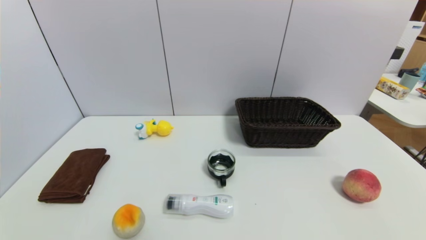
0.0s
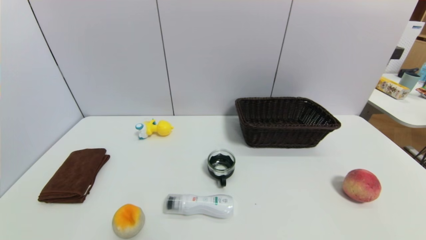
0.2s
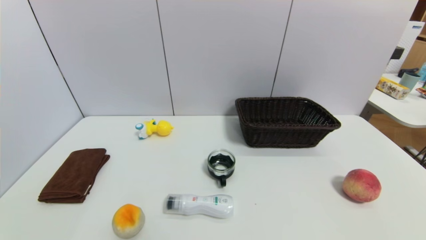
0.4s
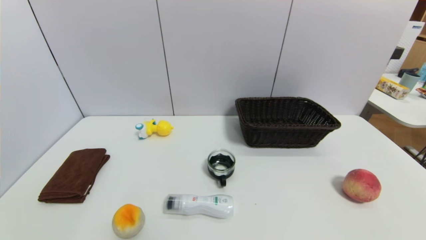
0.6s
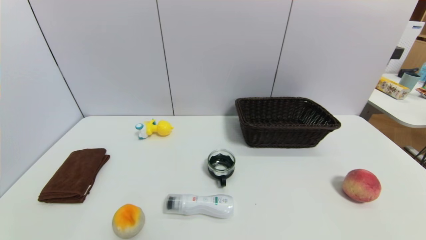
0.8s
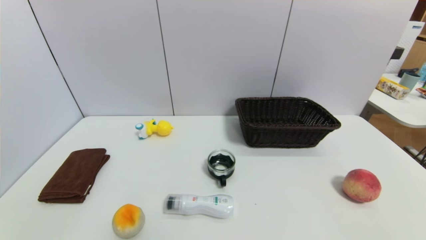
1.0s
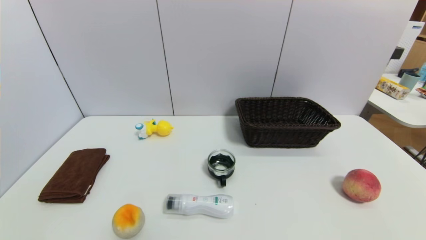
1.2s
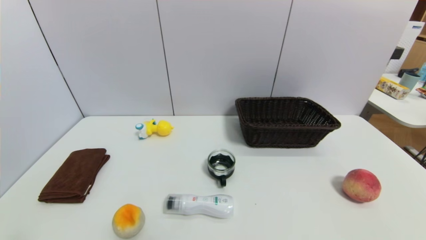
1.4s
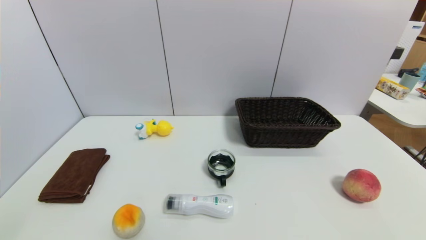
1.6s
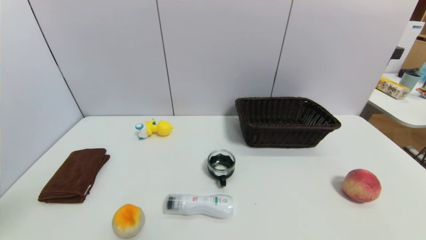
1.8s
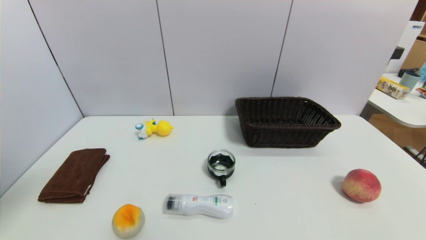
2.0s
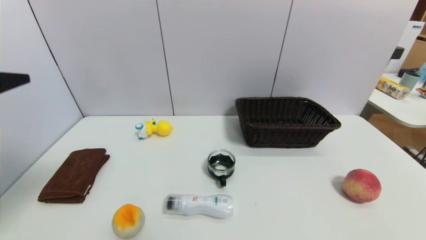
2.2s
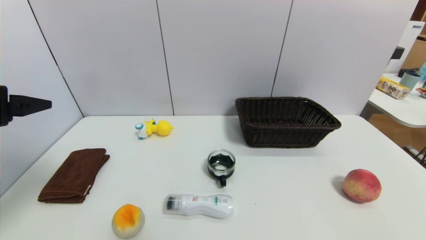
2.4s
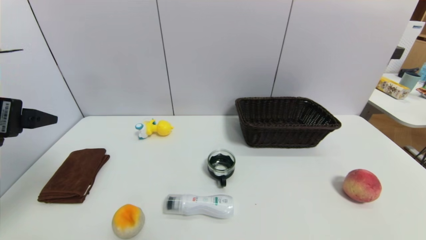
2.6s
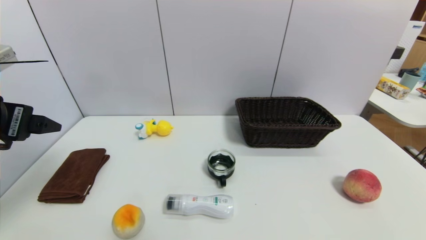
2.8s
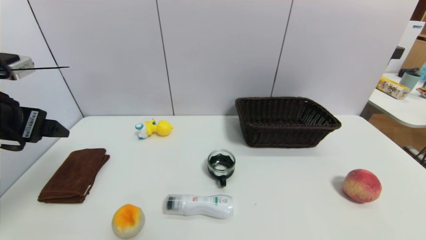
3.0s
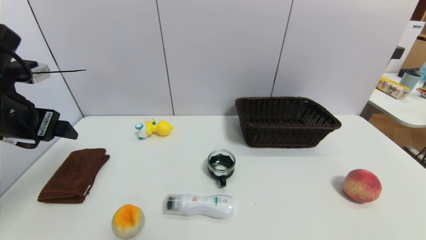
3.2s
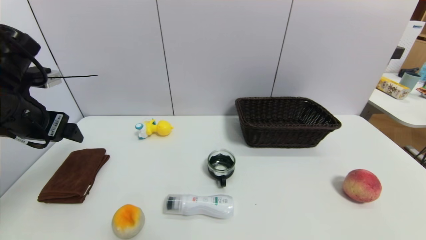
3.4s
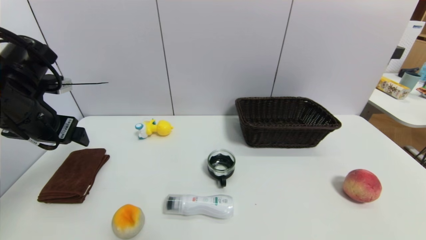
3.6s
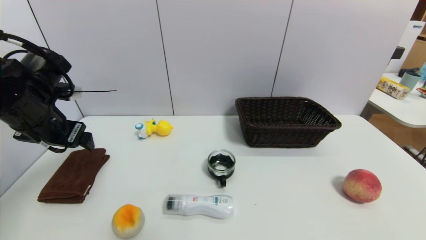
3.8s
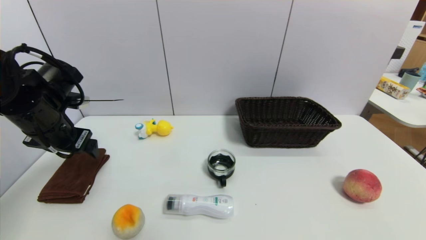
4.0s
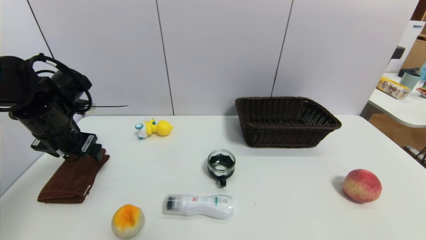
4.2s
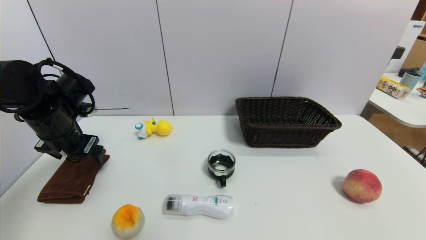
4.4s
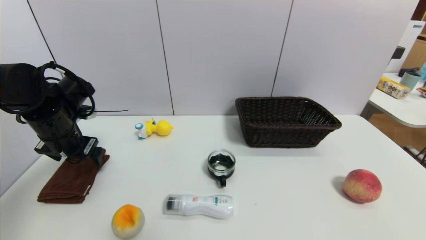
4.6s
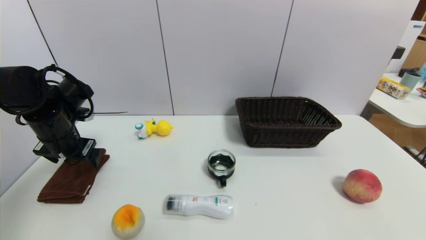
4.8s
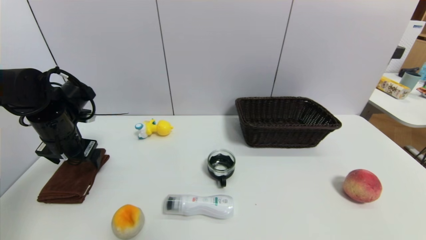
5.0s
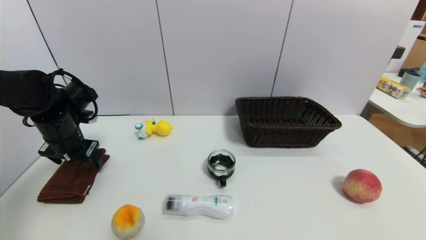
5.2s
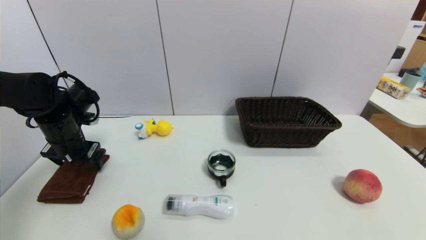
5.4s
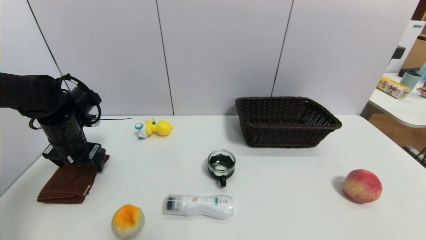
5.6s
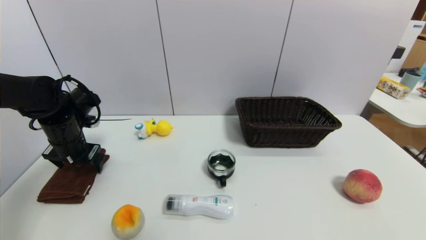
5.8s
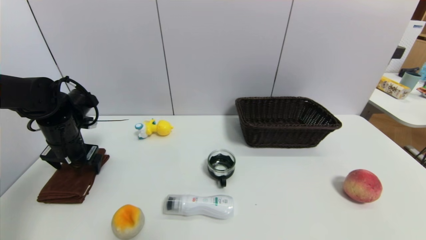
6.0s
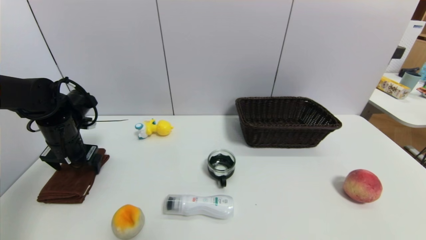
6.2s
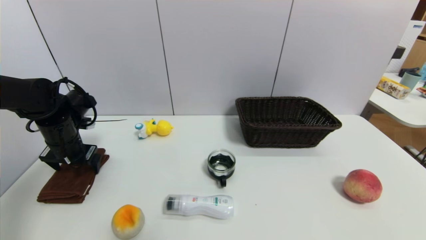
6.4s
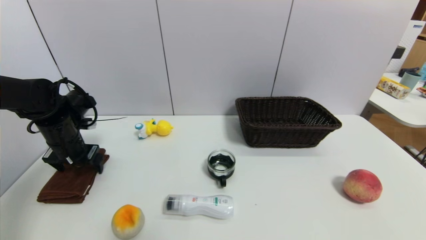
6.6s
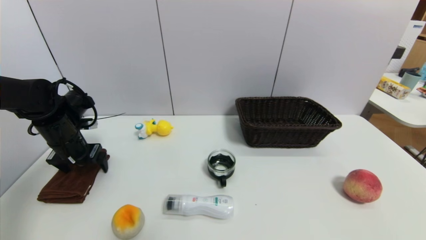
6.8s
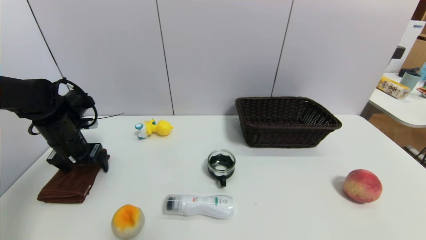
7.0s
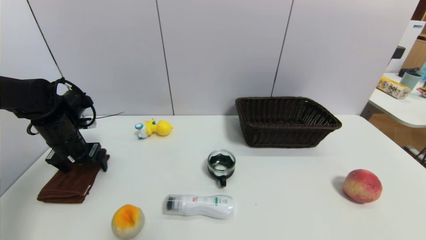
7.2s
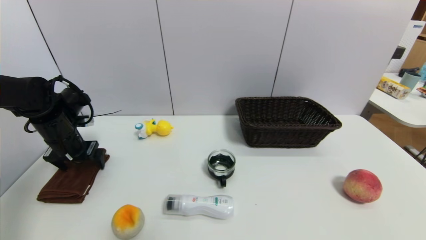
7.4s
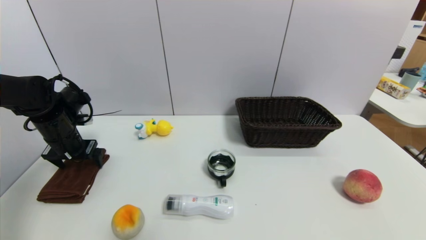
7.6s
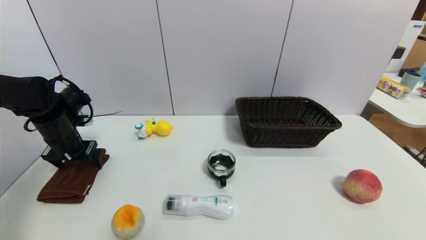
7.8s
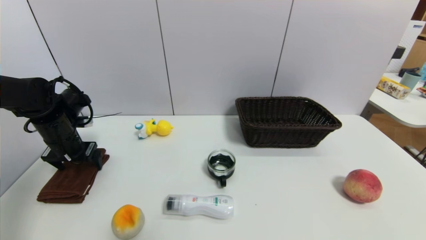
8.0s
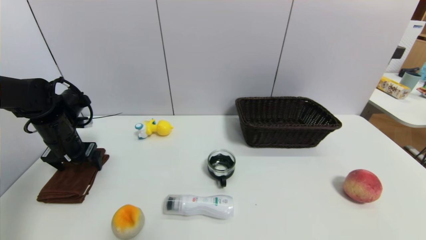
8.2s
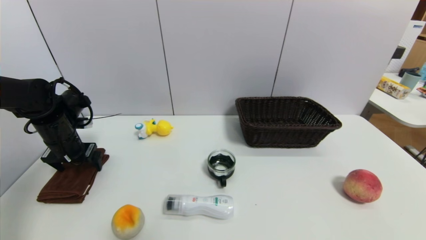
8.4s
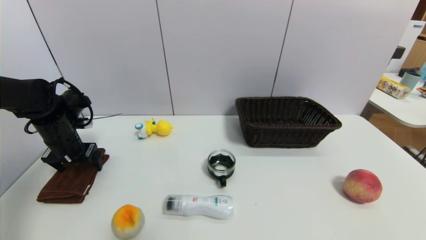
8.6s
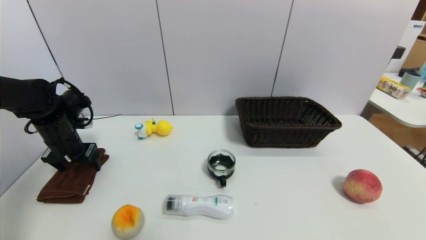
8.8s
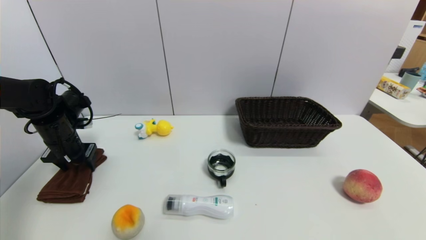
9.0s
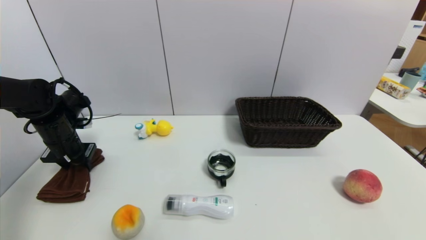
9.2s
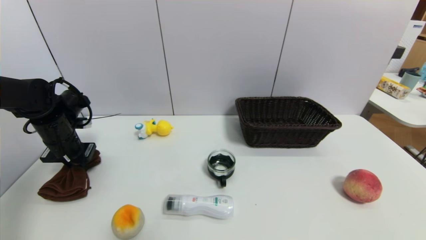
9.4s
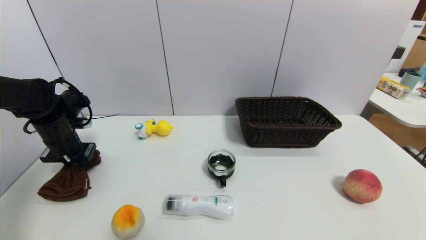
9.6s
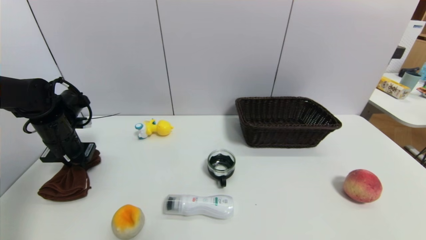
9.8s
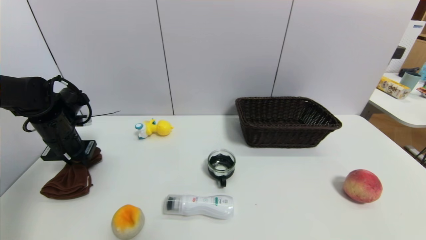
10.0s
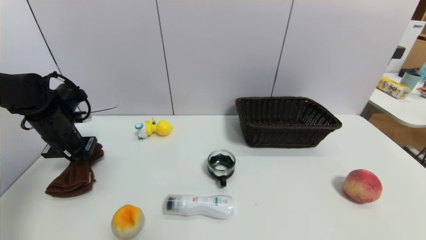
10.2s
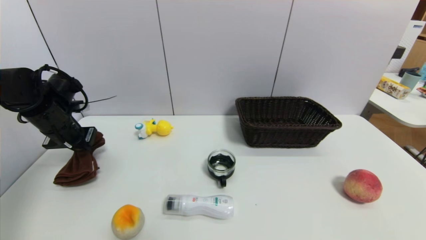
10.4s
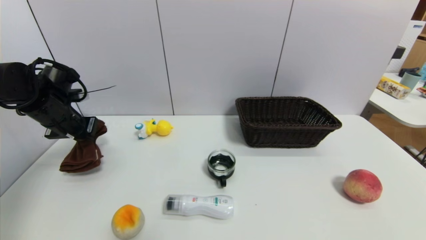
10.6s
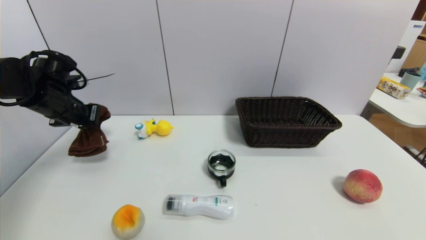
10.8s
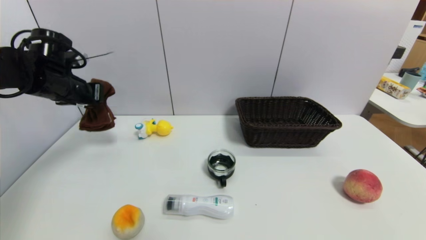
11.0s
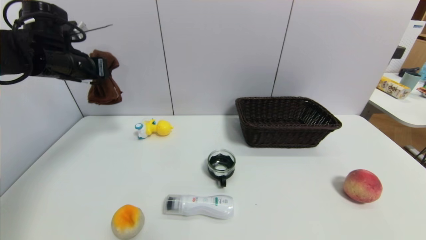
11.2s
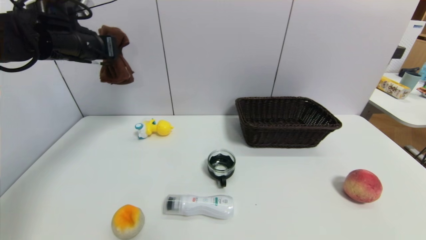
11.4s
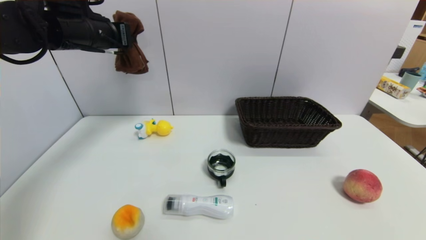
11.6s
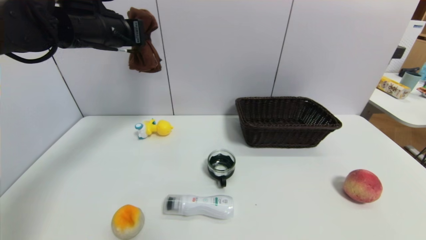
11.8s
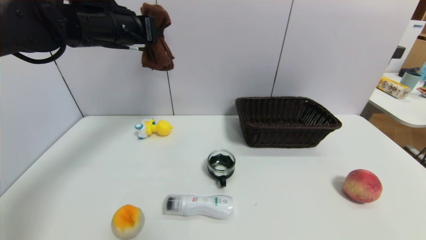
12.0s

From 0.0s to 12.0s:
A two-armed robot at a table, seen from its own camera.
Task of the whole recording: use a gripper to pick the target object and place on the brown basket.
Step, from 0.0s to 9.4s: Grasp the brown towel with the left gripper.
From 1.6s to 3.0s: The left gripper shifts some 20 cm forward.
From 3.0s to 4.4s: The left gripper travels forward and downward by some 15 cm.
From 4.4s to 6.0s: The left gripper moves about 5 cm.
From 6.0s to 7.6s: The grippers move only a little.
From 7.6s to 9.0s: The left gripper closes its fingers.
From 9.0s to 10.4s: The left gripper closes its fingers.
From 10.4s to 12.0s: The left gripper travels upward and to the right by about 25 cm.

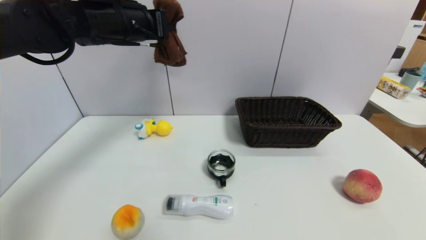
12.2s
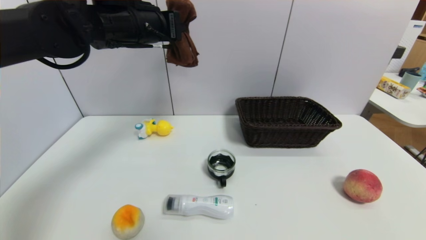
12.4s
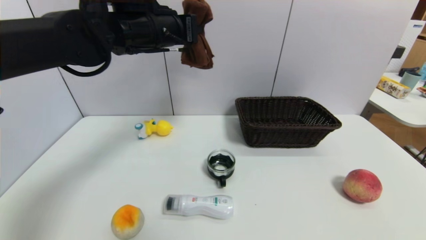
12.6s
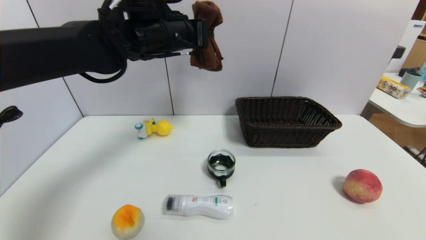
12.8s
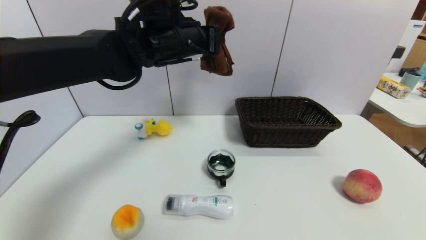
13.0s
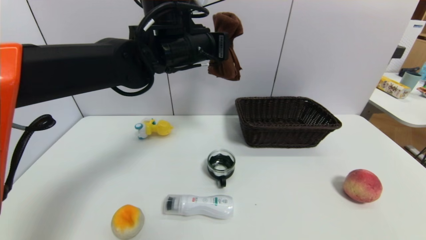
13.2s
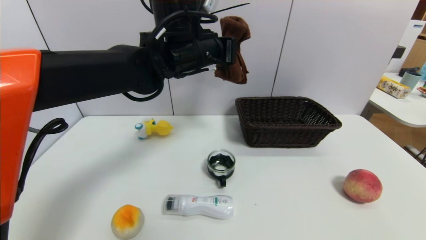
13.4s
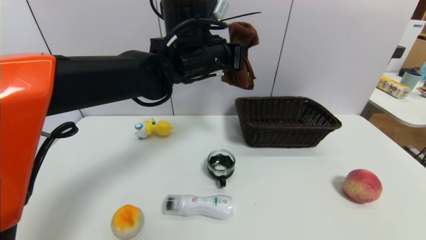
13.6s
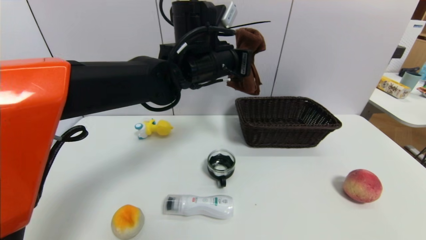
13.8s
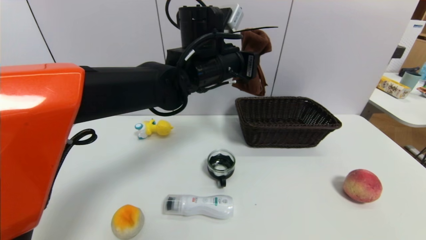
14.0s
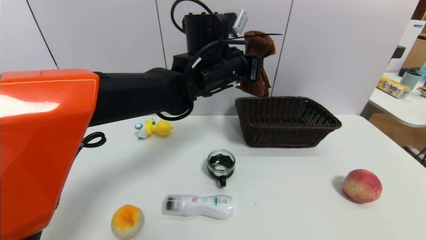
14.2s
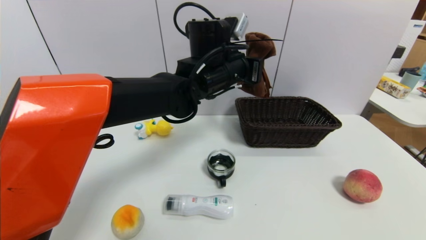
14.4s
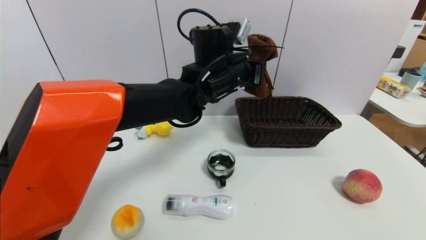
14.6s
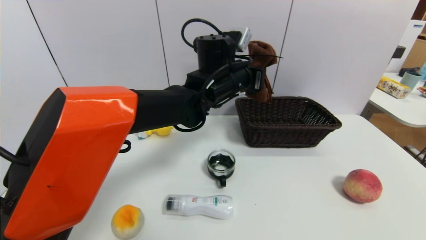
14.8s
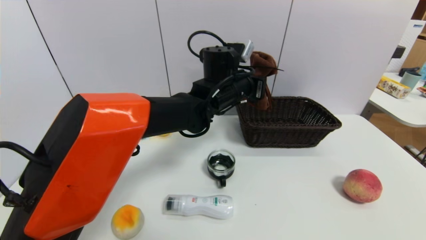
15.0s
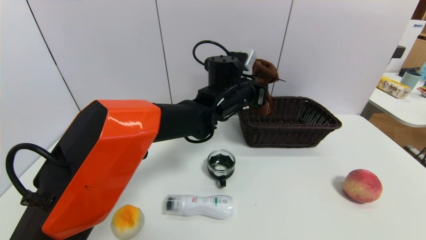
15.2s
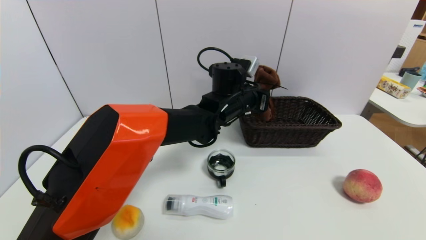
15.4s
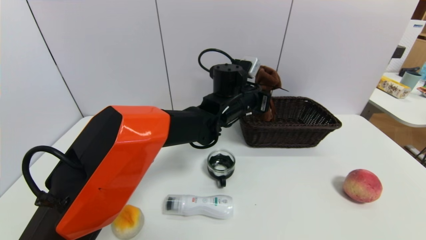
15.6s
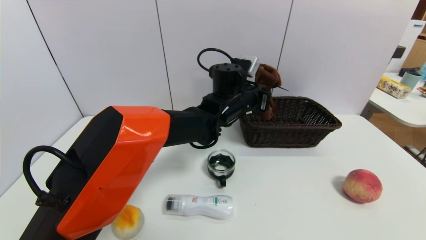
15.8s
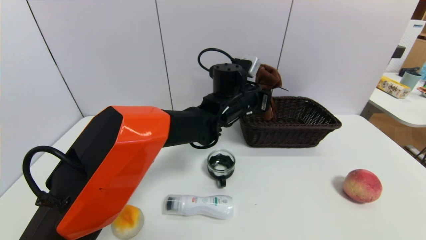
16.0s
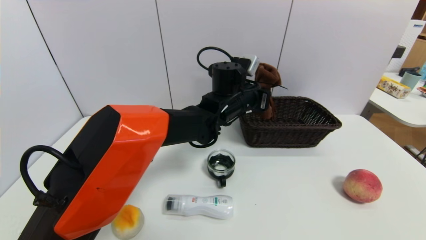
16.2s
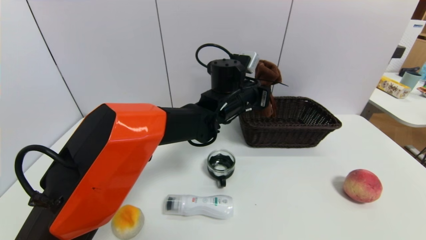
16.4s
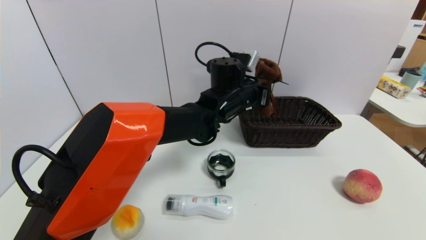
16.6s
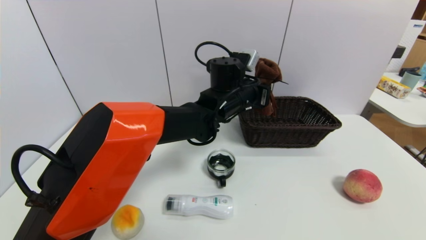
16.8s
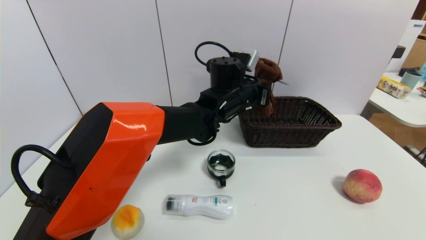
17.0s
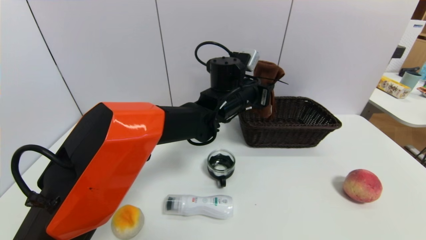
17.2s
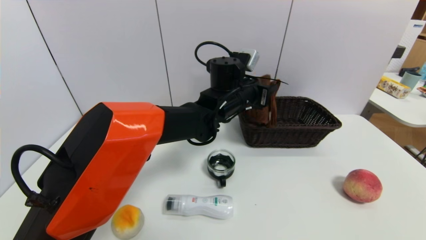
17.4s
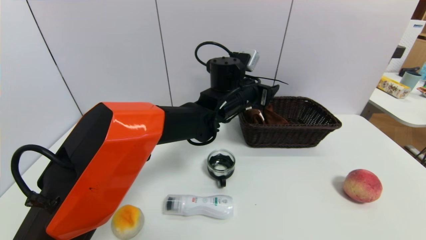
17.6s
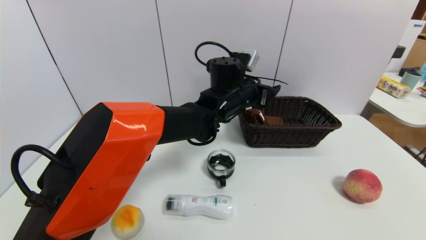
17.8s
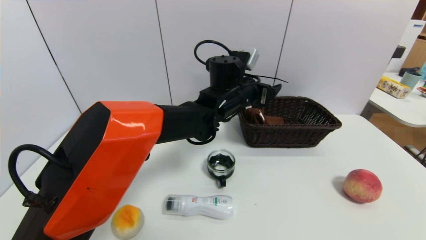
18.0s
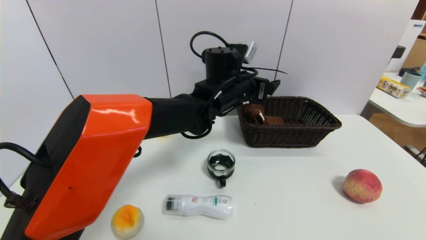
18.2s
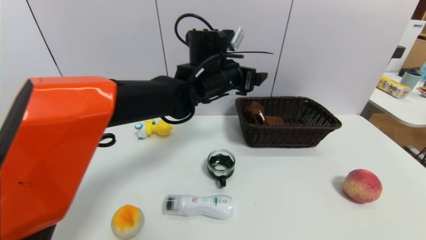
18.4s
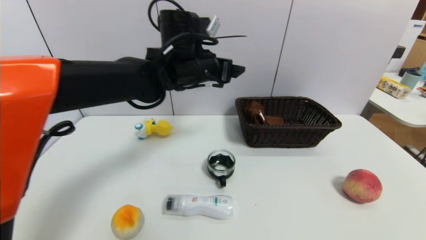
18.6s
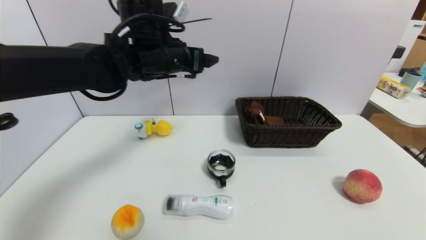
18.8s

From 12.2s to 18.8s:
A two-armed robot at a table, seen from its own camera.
Task of the whole recording: use a gripper to pick the target object and place on the brown basket.
Step, from 12.2s to 18.0s: Place the brown towel into the basket with the left gripper.
From 12.2s to 13.8s: The left gripper moves to the right and downward, roughly 15 cm.
From 13.8s to 15.4s: The left gripper shifts approximately 10 cm downward and to the right.
From 15.4s to 17.2s: The left gripper opens up.
From 17.2s to 18.8s: The left gripper heads to the left and upward, covering approximately 20 cm, and opens up.
